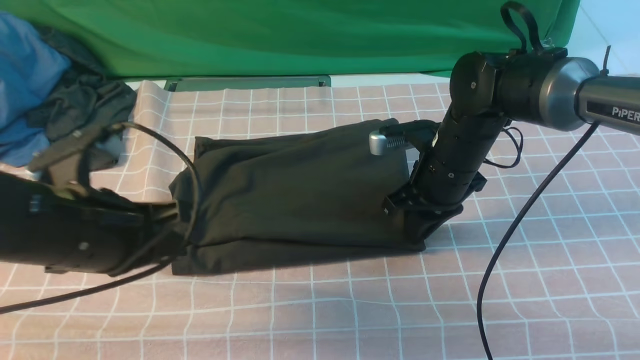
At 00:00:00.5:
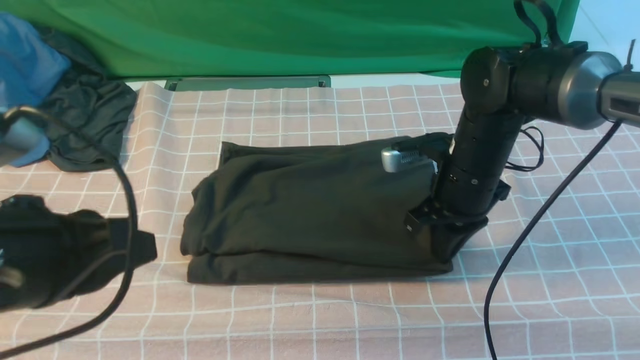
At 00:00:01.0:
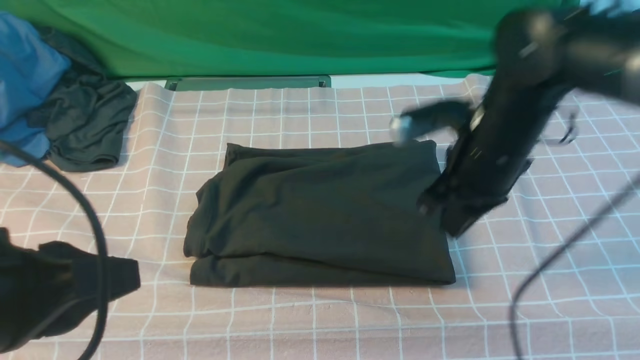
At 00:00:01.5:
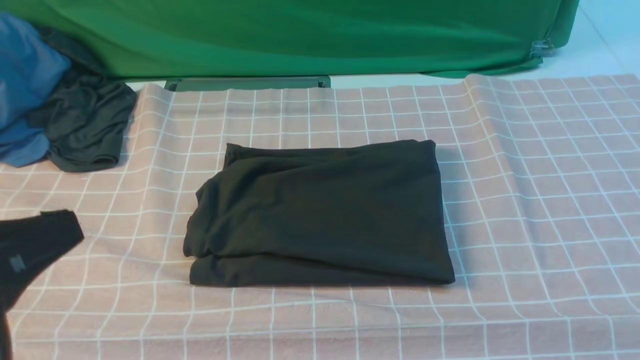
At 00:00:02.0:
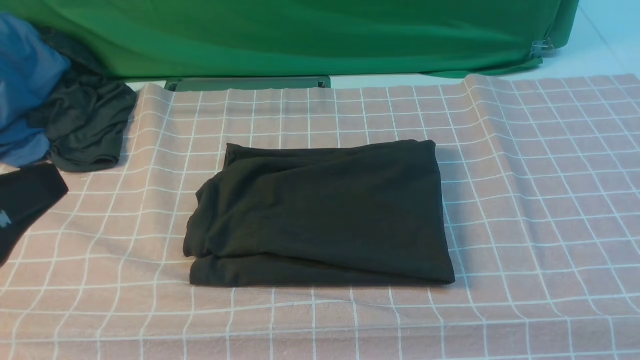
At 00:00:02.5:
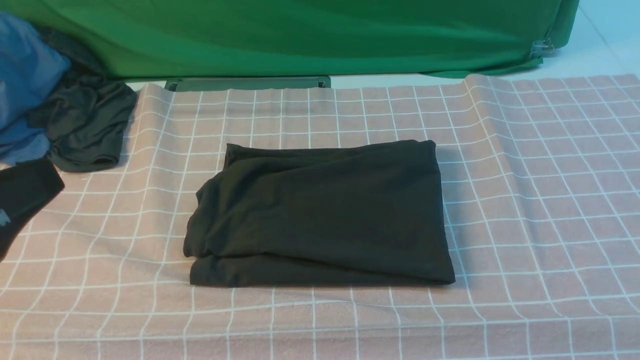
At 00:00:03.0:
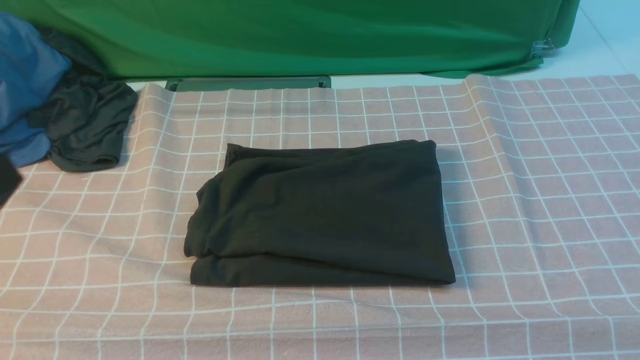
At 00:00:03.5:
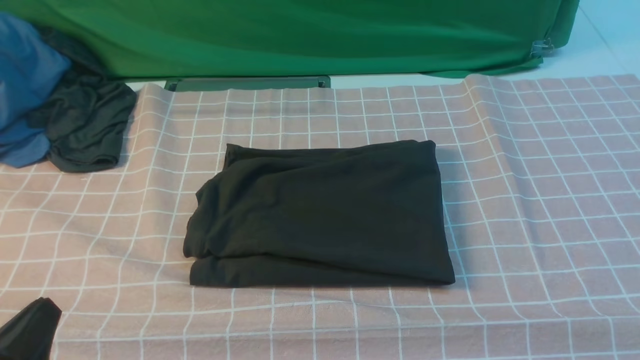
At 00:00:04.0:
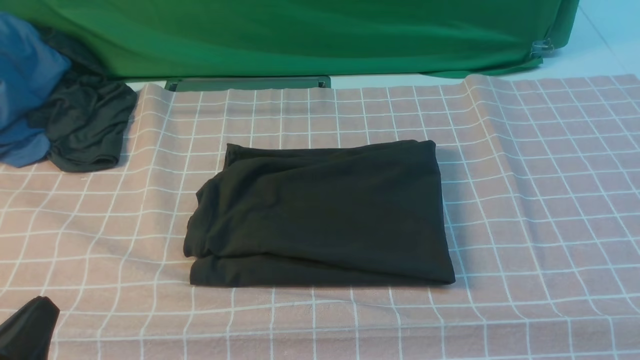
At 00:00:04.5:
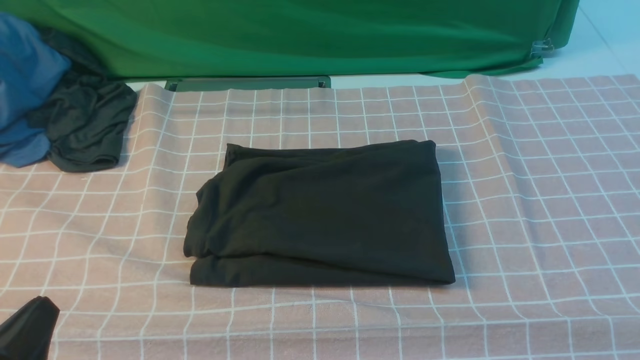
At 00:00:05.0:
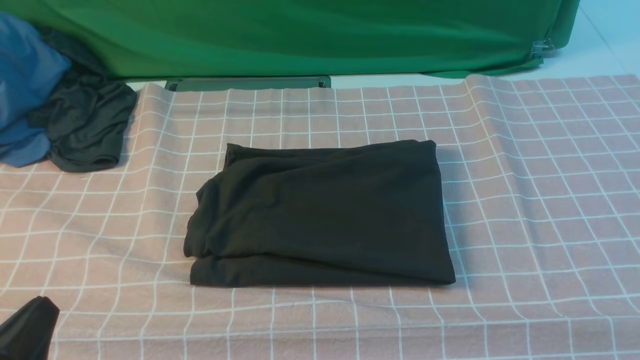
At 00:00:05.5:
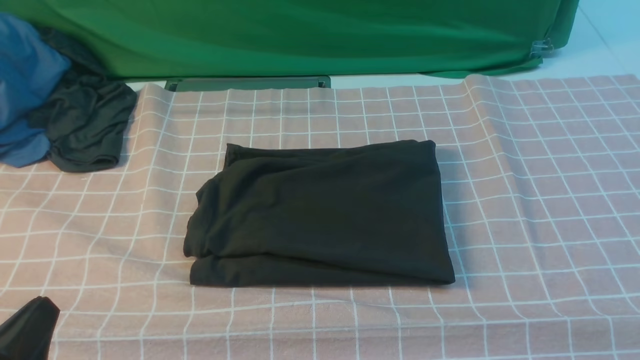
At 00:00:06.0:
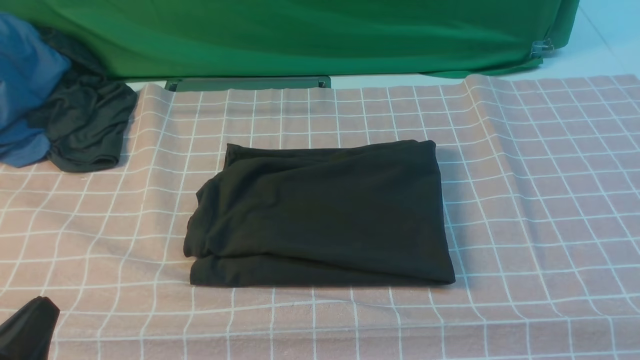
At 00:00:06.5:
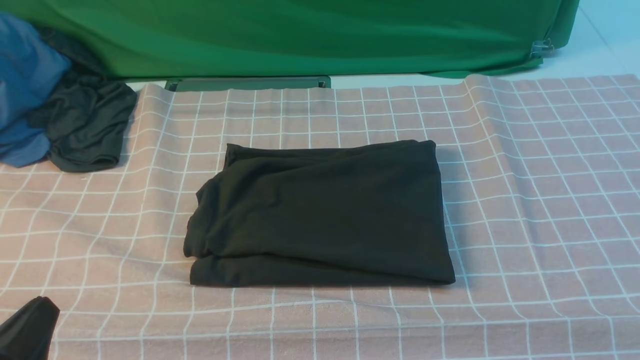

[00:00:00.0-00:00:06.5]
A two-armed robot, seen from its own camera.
00:00:00.0 to 00:00:02.0: The right gripper is displaced backward, upward and to the right by some 40 cm. Meanwhile the left gripper heads backward and upward, covering roughly 15 cm.
00:00:02.0 to 00:00:04.5: The left gripper moves downward, roughly 15 cm.
